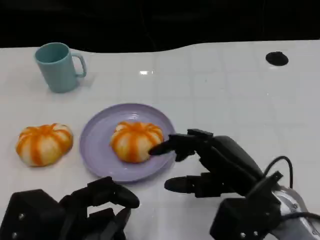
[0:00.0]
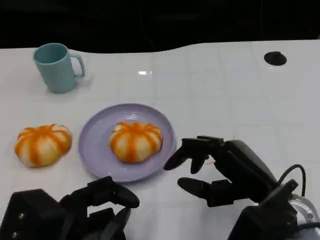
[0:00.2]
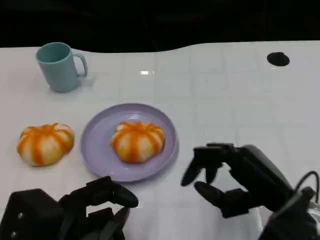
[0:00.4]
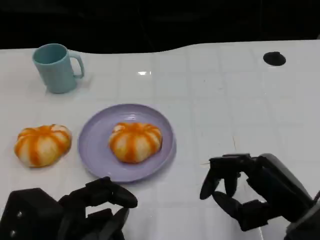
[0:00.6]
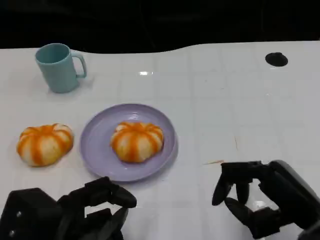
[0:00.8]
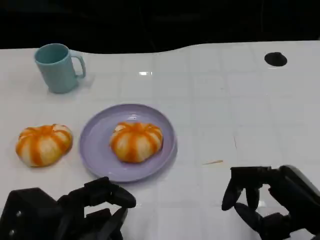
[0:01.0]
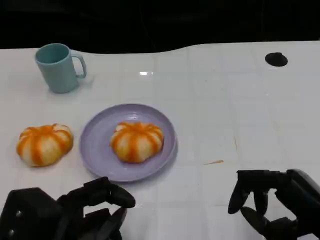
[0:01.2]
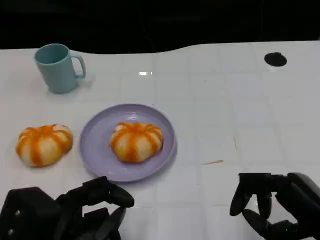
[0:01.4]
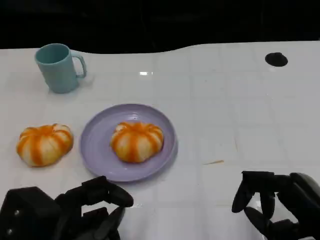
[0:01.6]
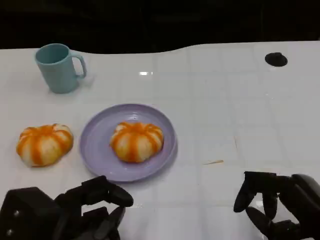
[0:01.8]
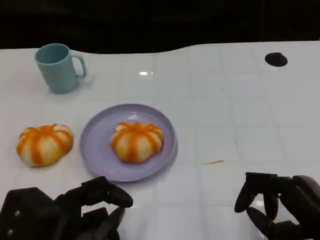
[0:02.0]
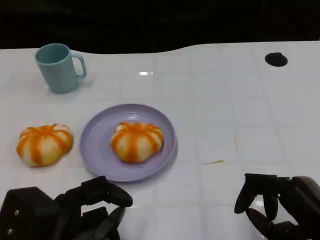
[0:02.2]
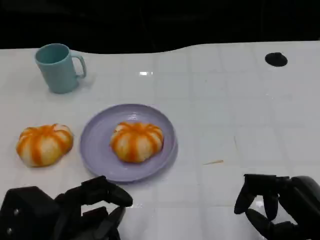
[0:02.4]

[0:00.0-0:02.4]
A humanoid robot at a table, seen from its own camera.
Task of the whole recording: Grasp the bread from the table and place it into the plate.
0:00.0 to 0:01.2: The right hand travels to the right and backward by roughly 10 cm.
0:01.2 to 0:02.4: The hands make only small movements.

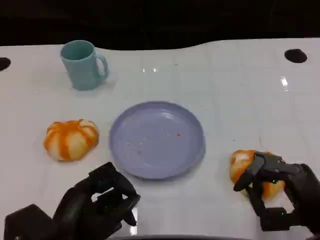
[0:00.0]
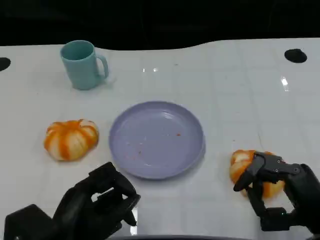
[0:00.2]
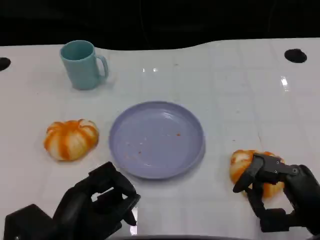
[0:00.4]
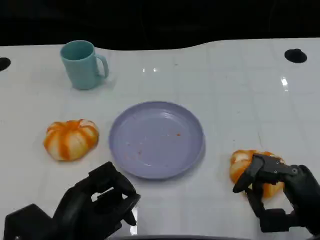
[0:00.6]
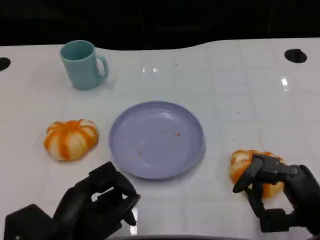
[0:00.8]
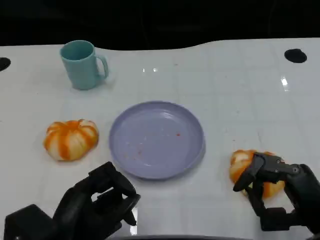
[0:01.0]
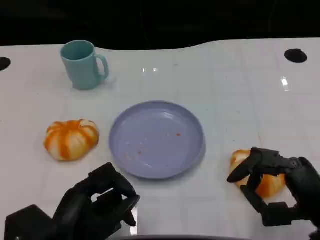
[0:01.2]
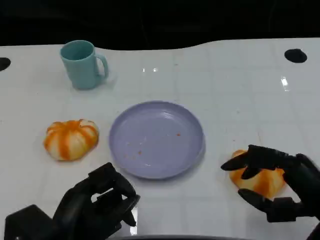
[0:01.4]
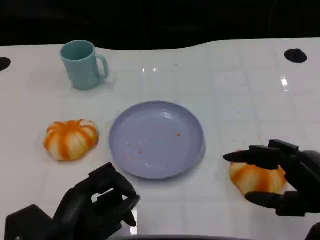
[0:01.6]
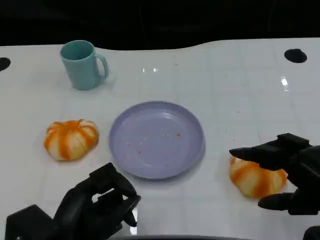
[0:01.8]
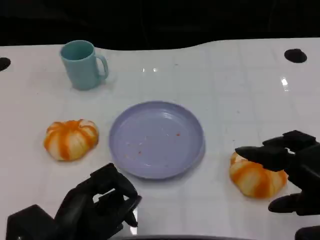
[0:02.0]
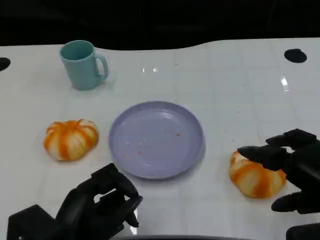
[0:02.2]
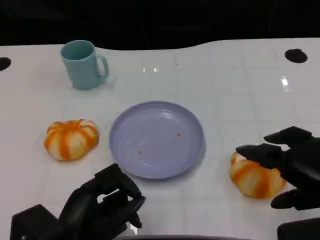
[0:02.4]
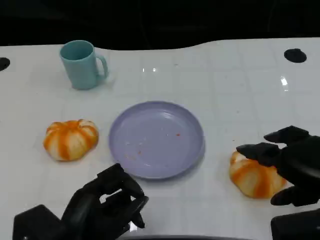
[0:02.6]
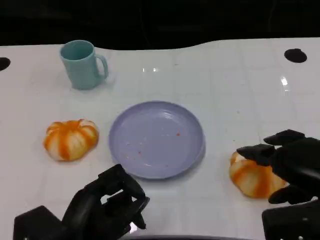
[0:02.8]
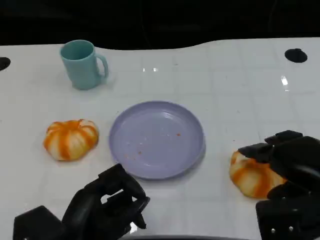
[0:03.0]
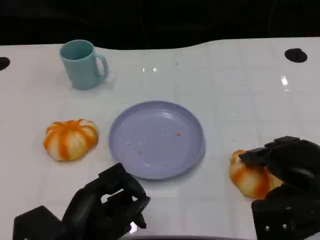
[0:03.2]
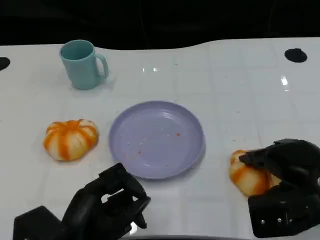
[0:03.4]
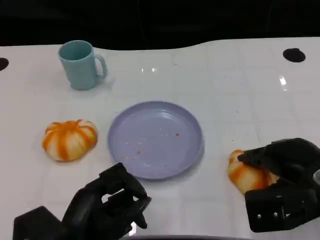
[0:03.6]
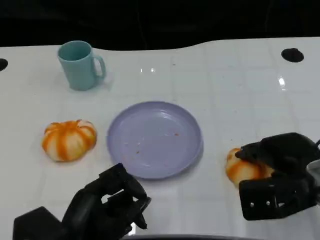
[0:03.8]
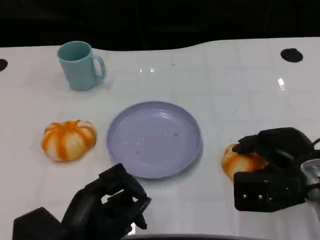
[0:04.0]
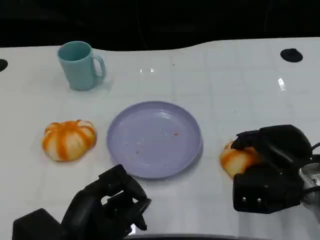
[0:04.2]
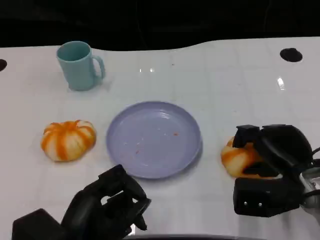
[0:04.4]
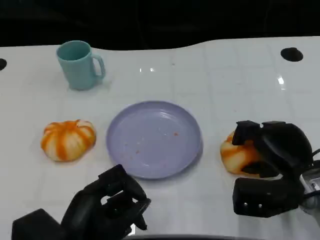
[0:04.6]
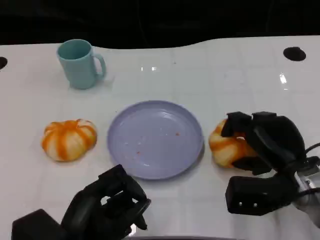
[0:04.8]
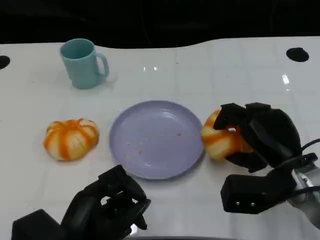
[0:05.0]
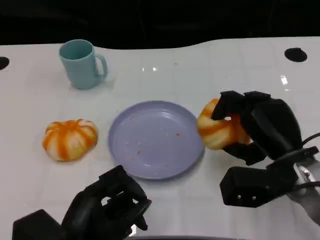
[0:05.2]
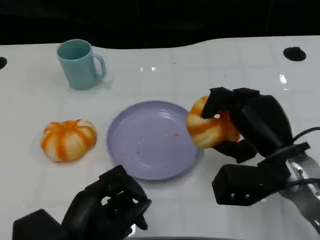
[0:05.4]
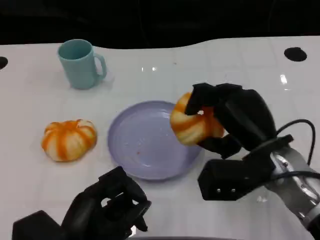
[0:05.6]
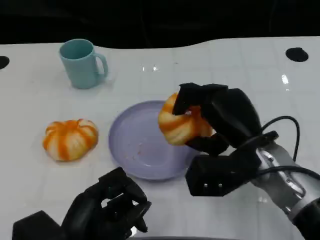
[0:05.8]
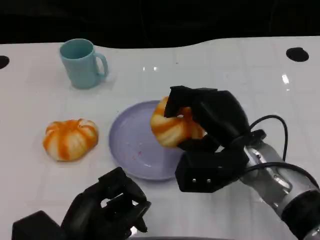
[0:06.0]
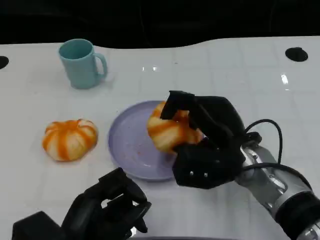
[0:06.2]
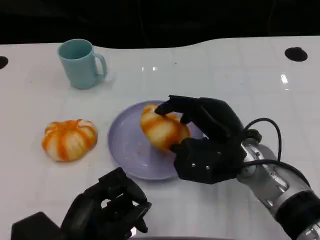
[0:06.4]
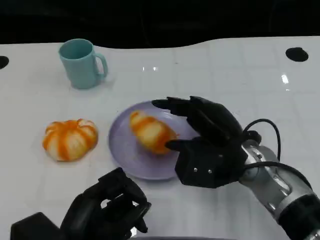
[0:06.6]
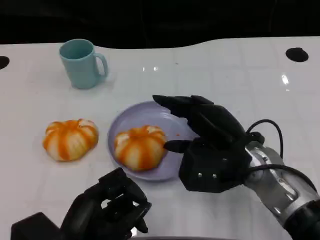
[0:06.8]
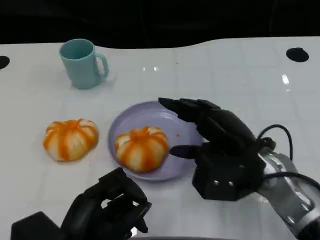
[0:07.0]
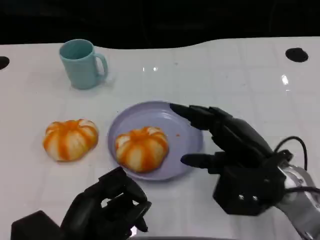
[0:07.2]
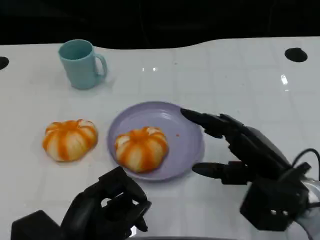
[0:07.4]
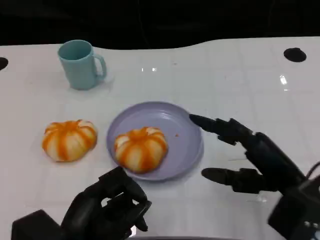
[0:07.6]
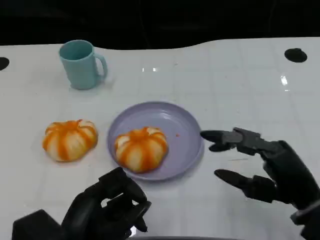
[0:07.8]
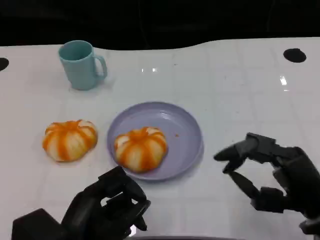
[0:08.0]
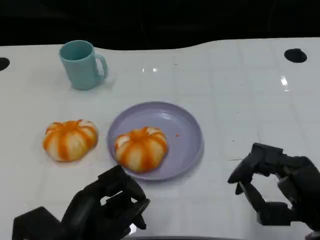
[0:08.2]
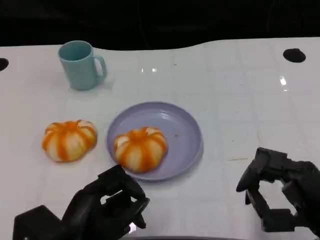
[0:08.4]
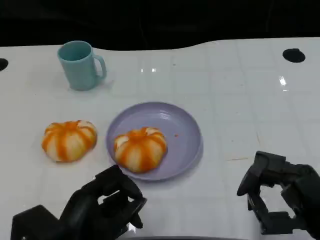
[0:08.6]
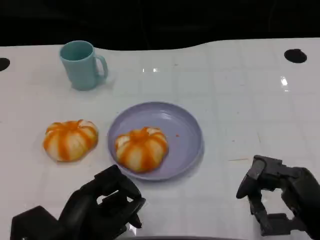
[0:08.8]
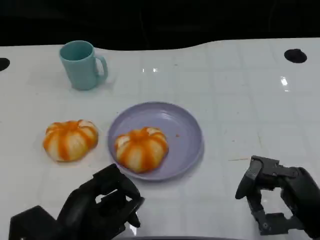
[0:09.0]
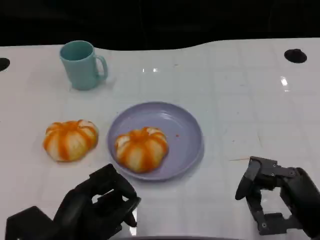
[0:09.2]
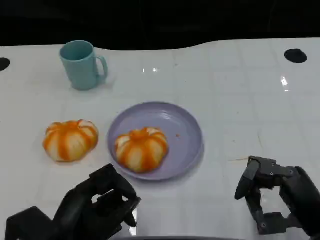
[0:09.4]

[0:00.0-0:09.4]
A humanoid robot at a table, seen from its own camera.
Task of the whole recording: Grasp the bread from the table and place it into the plate.
0:00.0 to 0:01.6: The right hand heads upward, covering some 5 cm.
0:01.6 to 0:03.2: The right hand heads forward, covering some 5 cm.
0:03.2 to 0:04.8: The right hand shifts by about 5 cm.
0:04.8 to 0:06.2: The right hand heads to the left, covering approximately 10 cm.
0:06.2 to 0:07.8: The right hand travels to the right and backward by roughly 15 cm.
0:07.8 to 0:09.4: The hands make only small movements.

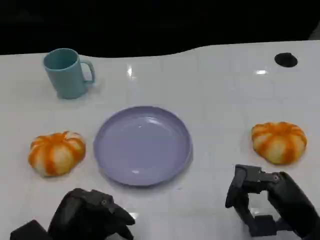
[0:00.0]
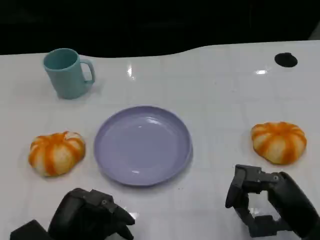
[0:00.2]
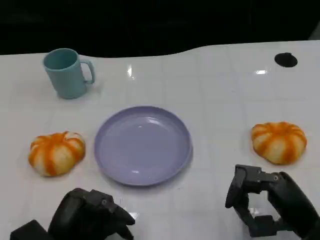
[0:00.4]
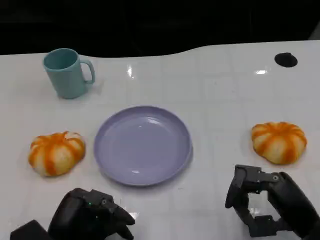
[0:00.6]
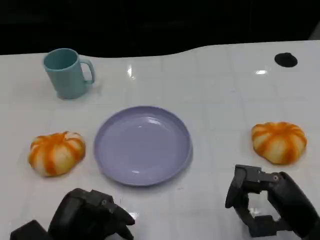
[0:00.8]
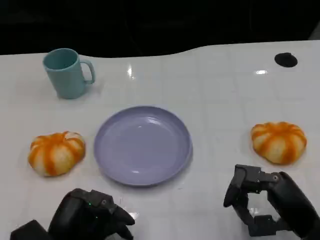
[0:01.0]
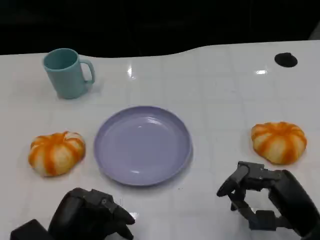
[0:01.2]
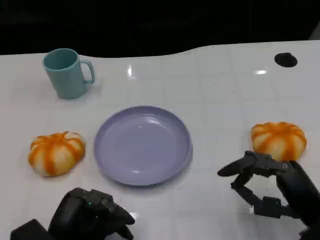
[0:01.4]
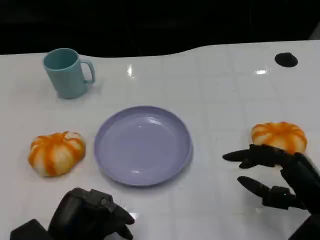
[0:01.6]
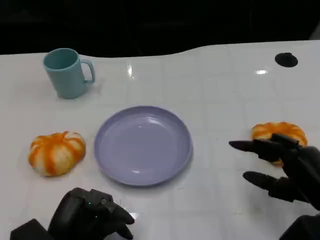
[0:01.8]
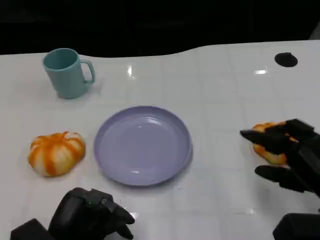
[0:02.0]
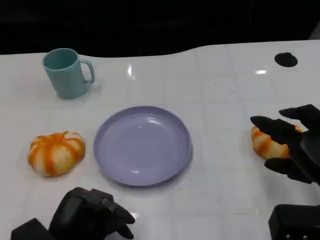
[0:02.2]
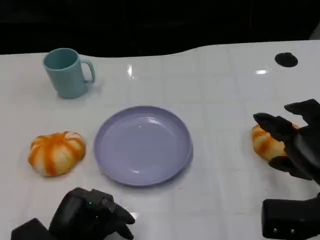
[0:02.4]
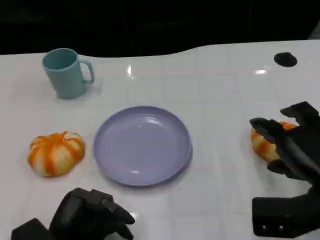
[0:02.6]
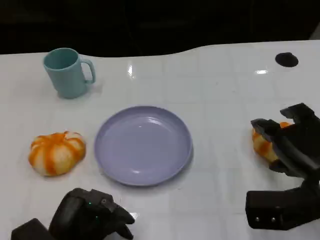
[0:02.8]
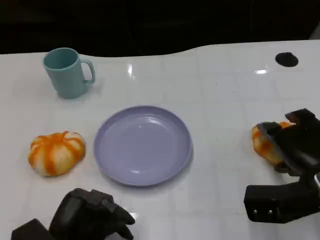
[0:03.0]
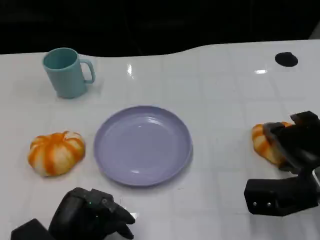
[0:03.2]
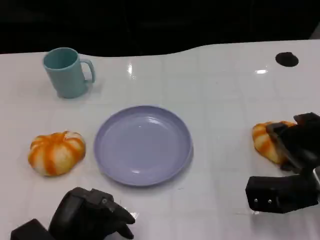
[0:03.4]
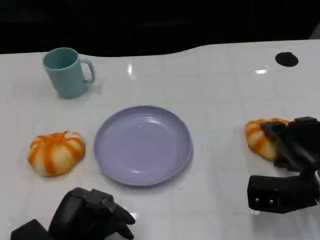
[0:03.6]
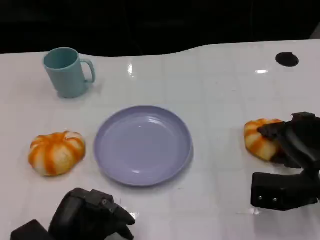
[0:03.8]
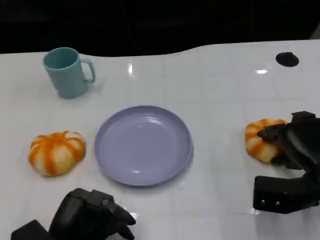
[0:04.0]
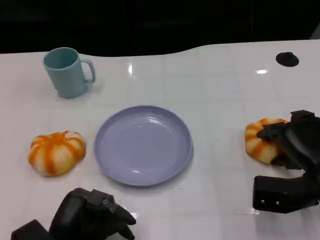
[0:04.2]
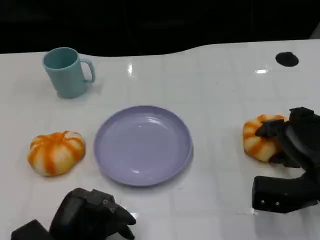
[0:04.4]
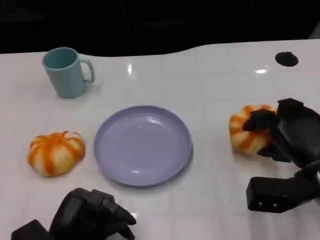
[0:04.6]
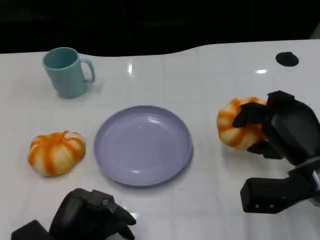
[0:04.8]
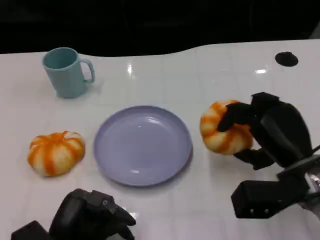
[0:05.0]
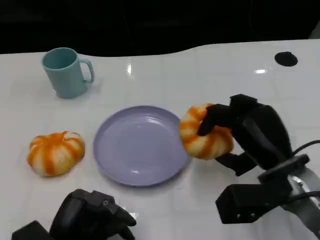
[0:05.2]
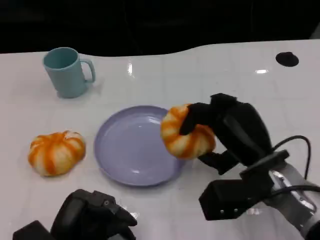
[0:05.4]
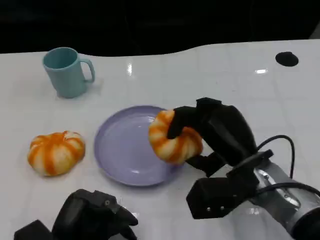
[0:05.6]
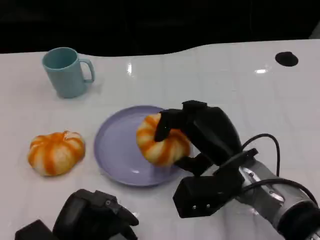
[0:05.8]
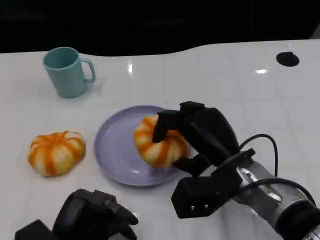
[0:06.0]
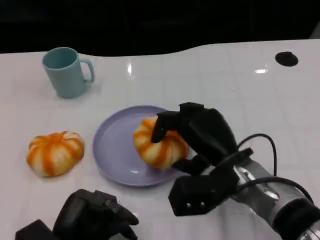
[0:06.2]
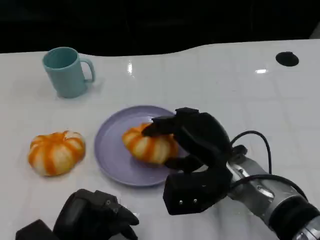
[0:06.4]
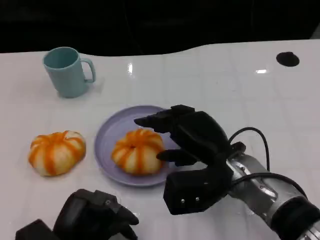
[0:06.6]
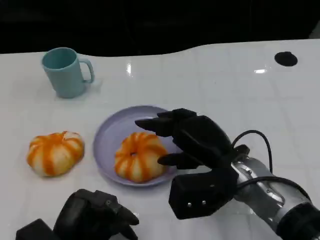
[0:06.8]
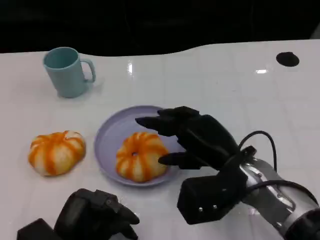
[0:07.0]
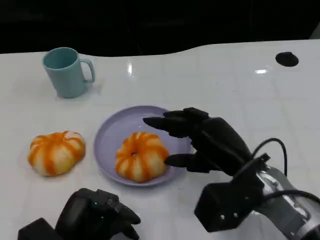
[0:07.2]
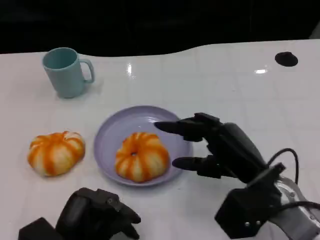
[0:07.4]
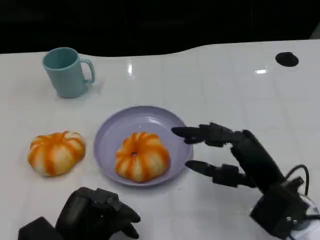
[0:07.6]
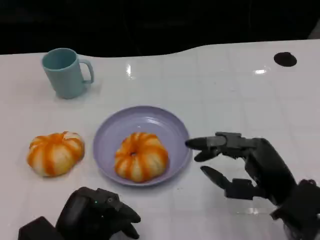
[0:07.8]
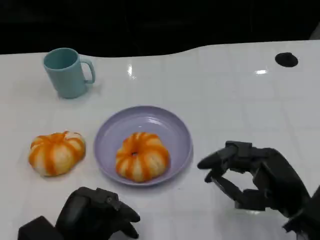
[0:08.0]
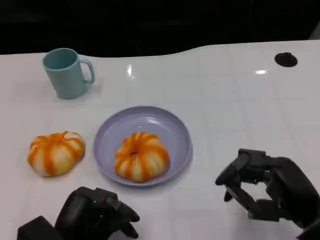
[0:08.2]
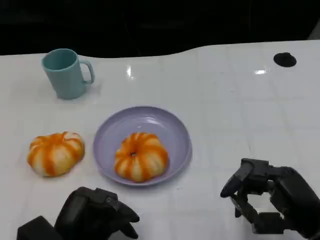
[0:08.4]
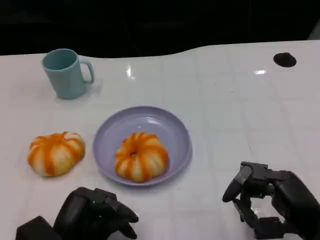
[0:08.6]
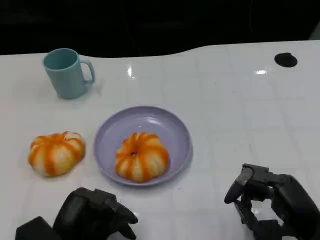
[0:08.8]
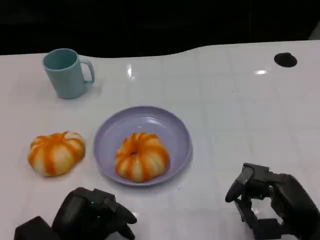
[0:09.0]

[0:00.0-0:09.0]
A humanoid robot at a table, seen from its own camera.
Task of the whole recording: Grasp the bread from the table and place it into the plate.
0:01.6 to 0:03.0: The right hand travels forward by roughly 5 cm.
0:04.4 to 0:06.0: The right hand is displaced to the left by approximately 15 cm.
0:06.0 to 0:07.6: The right hand heads to the right, covering roughly 5 cm.
0:07.6 to 0:09.0: The right hand moves backward, roughly 5 cm.

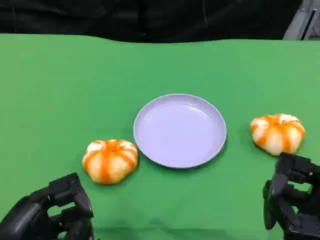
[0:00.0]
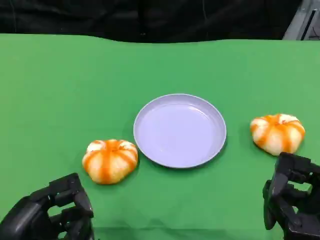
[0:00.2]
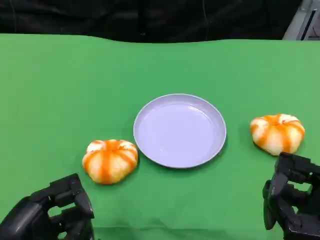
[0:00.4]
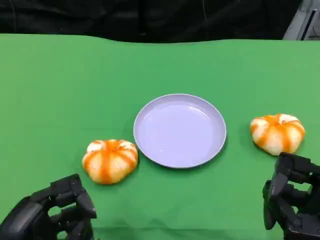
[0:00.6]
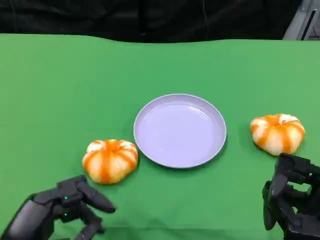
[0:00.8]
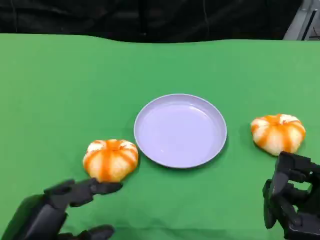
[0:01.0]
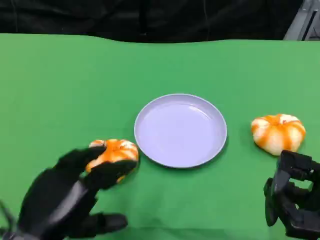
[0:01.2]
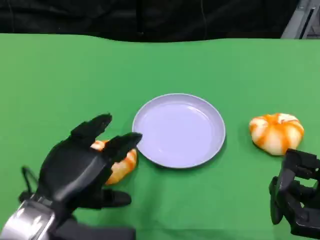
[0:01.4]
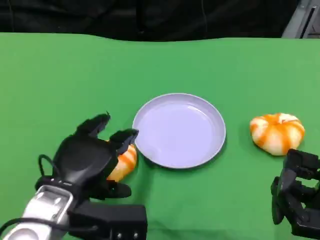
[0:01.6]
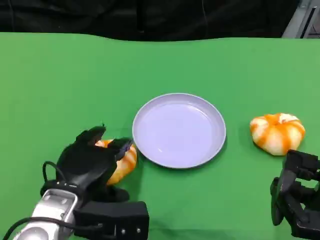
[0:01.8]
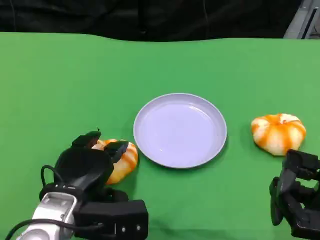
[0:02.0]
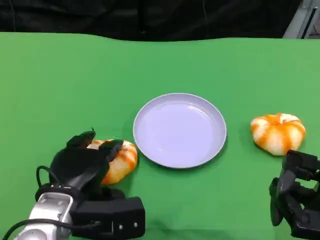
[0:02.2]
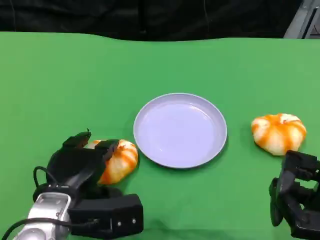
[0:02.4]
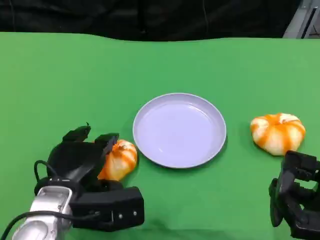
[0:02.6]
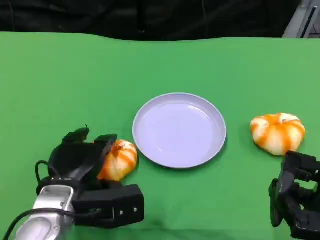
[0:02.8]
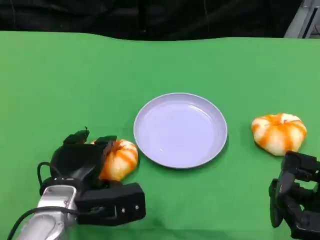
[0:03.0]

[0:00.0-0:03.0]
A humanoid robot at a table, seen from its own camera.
Task of the whole recording: Grasp the bread from the table and place it into the plate.
0:00.0 to 0:01.6: The left hand moves forward and to the right, about 15 cm.
0:01.6 to 0:03.0: The hands stay close to where they were, moving slightly.
